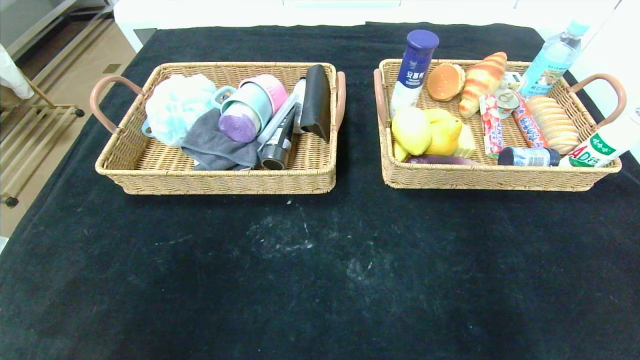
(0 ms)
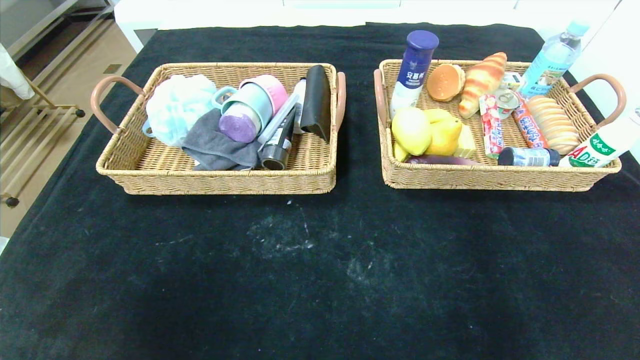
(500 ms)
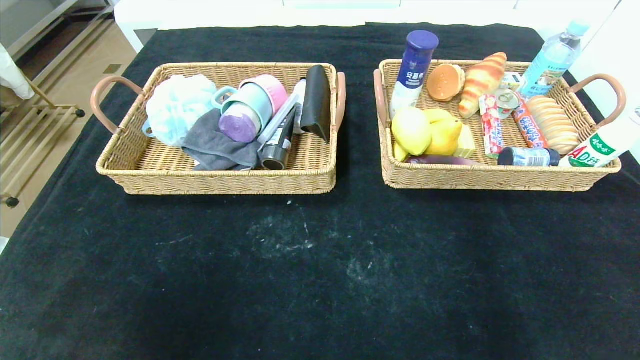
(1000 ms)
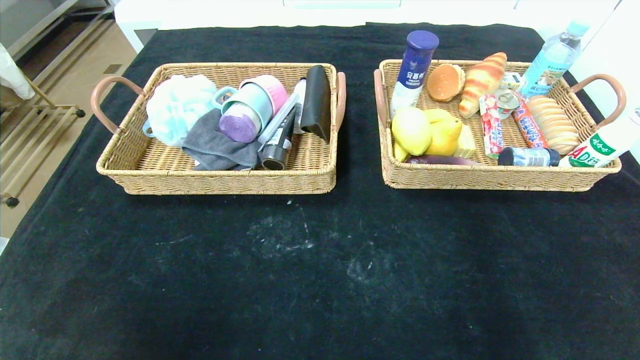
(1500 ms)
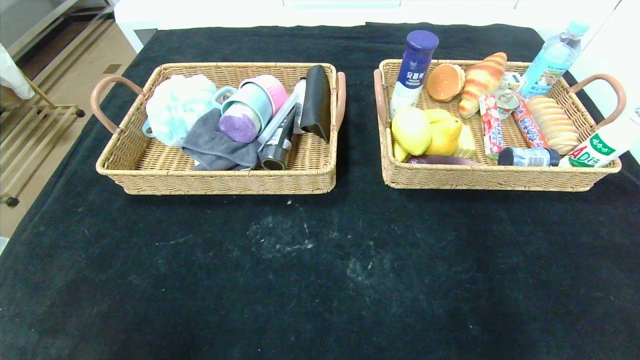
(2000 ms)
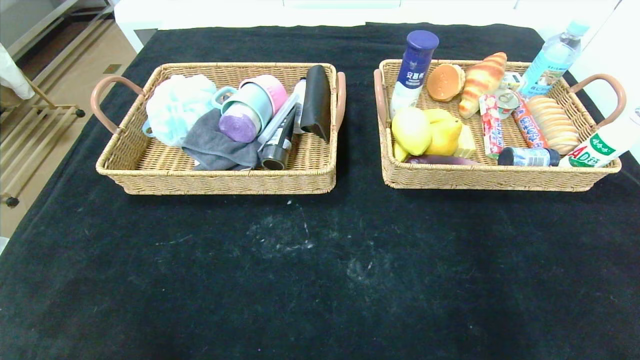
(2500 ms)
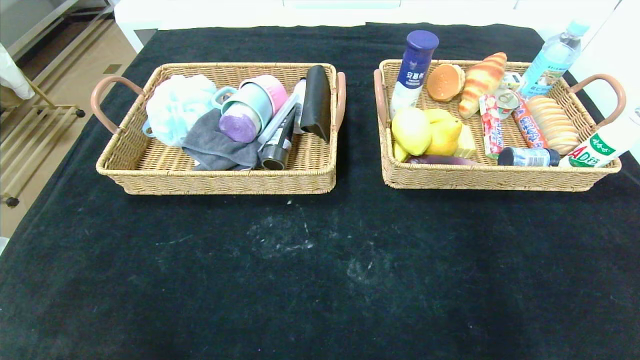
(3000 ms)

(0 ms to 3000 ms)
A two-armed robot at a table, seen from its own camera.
0 ms - 1500 ms: The left gripper heads downward and backward, covering some 10 cm.
